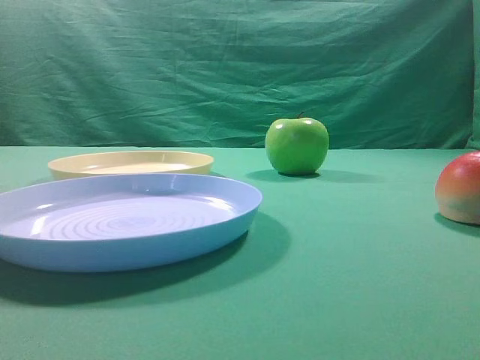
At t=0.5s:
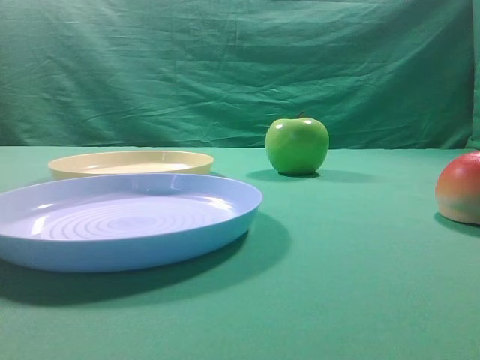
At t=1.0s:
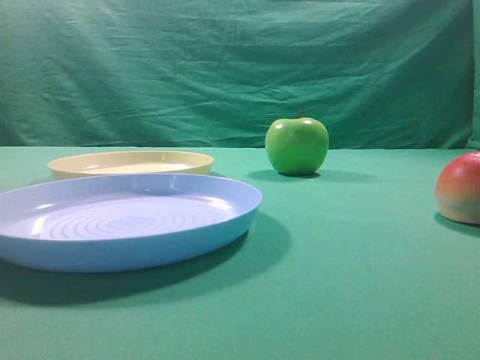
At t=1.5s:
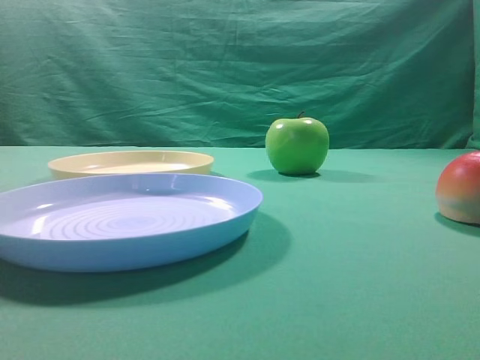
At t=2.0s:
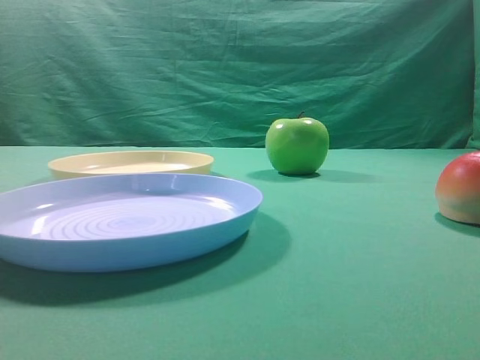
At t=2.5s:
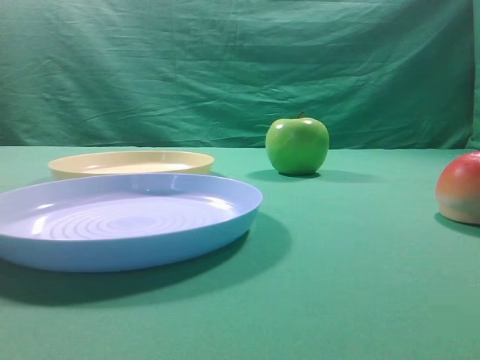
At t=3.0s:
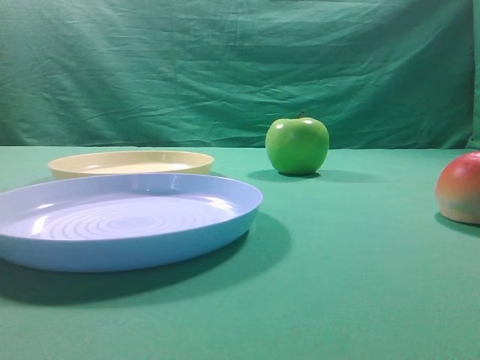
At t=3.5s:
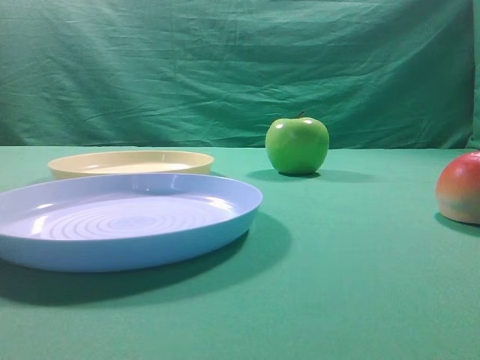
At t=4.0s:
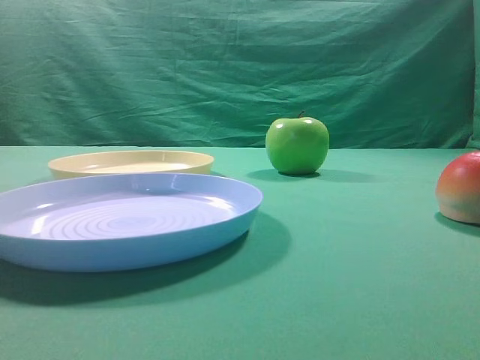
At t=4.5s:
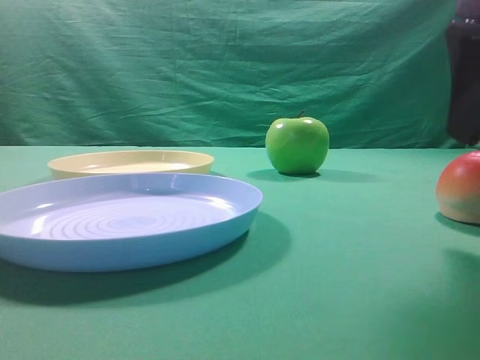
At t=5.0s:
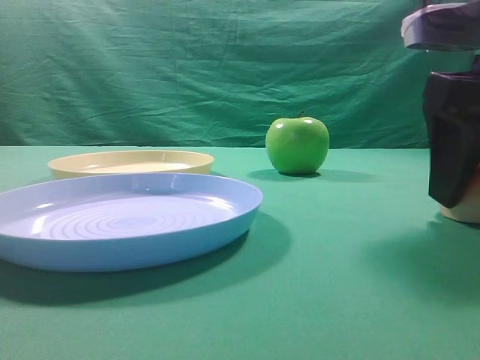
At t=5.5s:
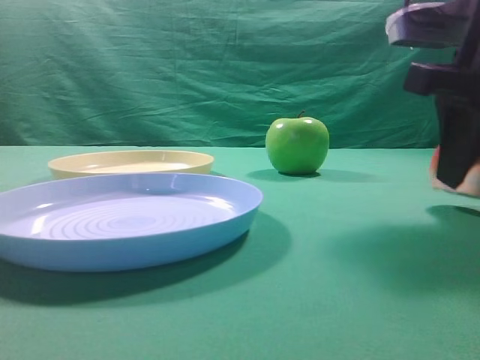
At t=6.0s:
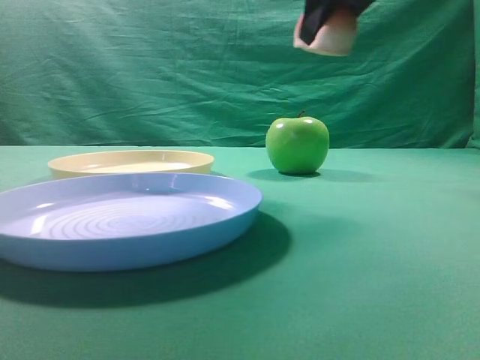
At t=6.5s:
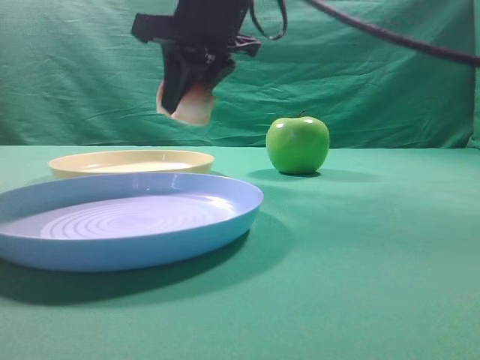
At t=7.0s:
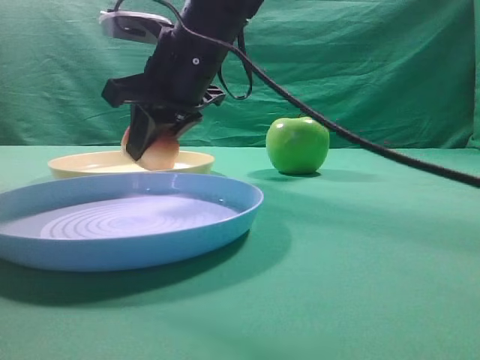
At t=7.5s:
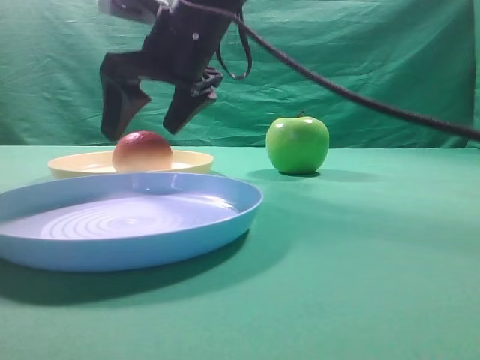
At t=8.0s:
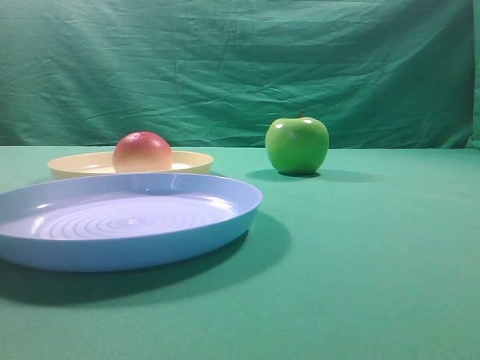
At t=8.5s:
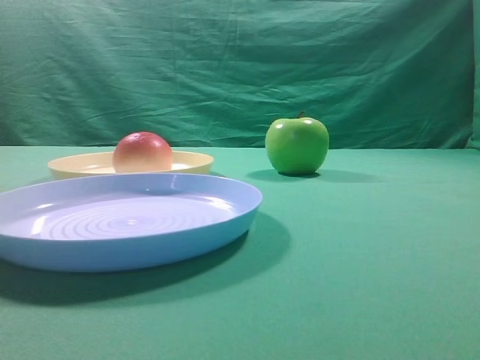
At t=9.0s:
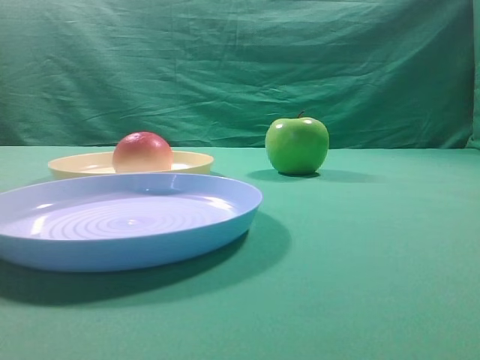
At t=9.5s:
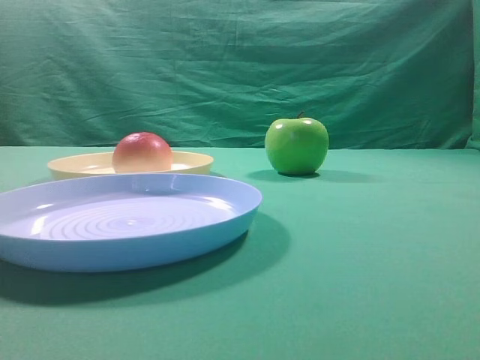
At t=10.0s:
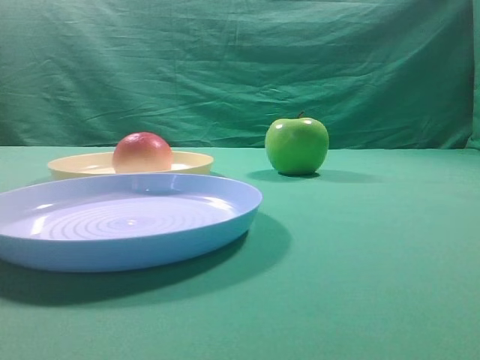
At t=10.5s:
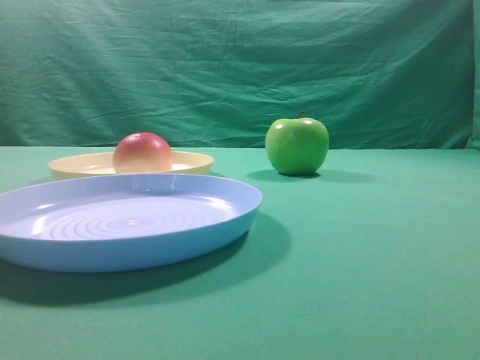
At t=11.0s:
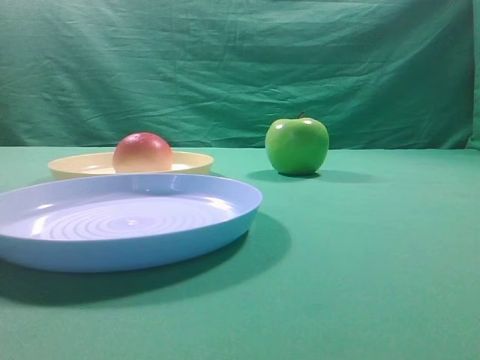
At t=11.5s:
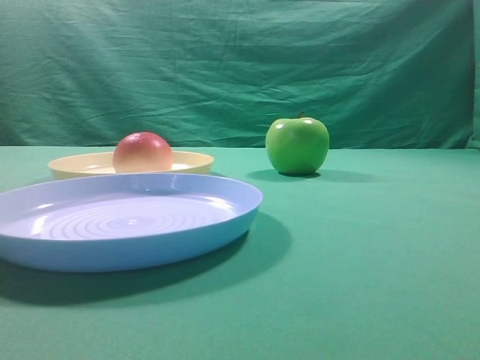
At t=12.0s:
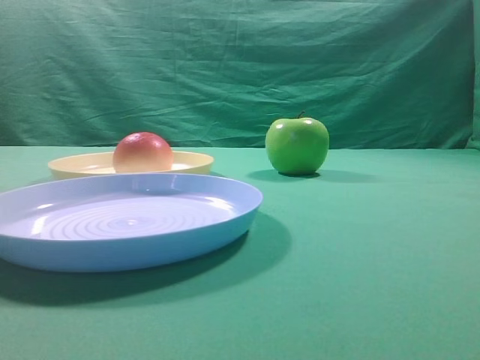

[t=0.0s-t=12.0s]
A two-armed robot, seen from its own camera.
Step, t=6.0s to t=7.5s: Place the picked object on the yellow plate.

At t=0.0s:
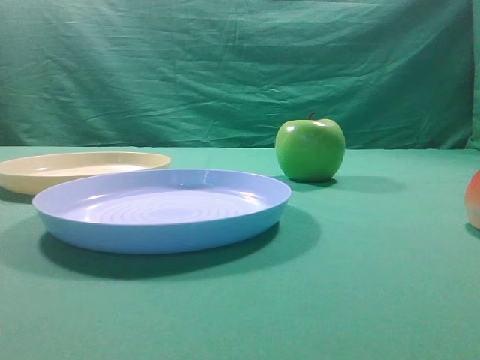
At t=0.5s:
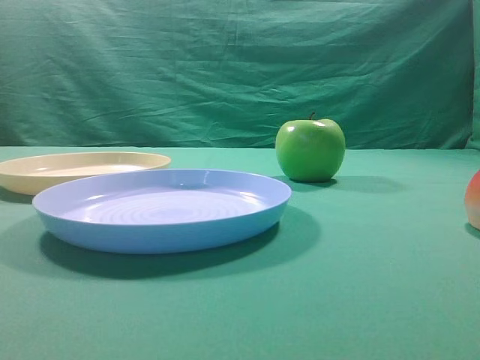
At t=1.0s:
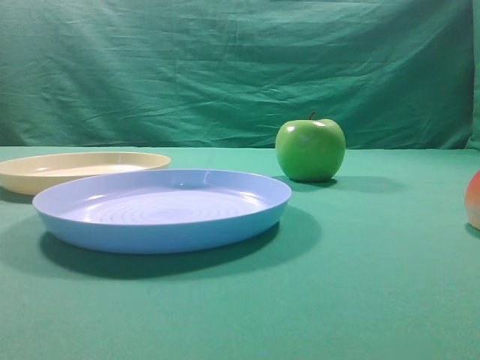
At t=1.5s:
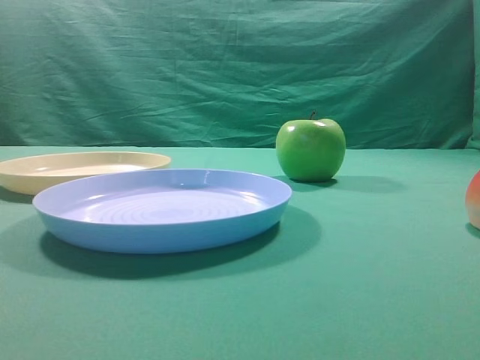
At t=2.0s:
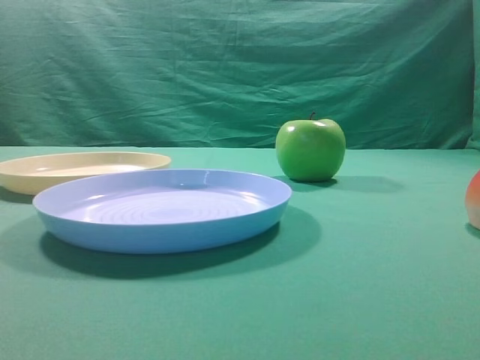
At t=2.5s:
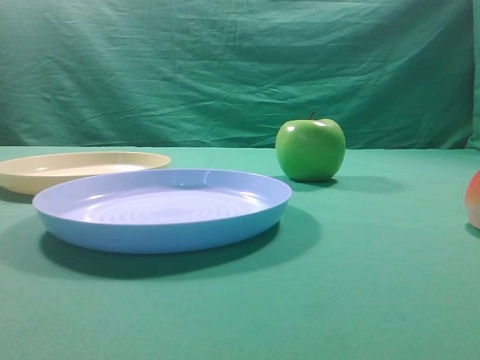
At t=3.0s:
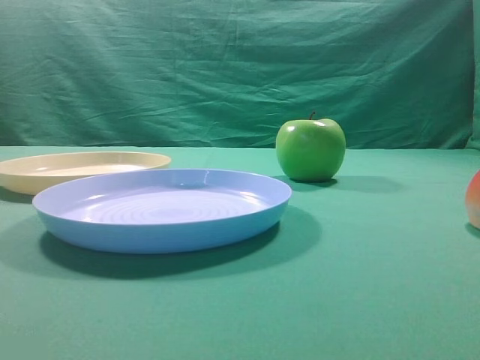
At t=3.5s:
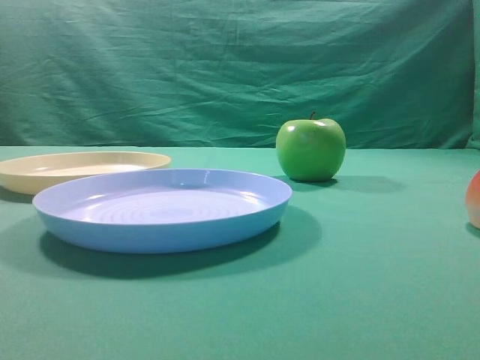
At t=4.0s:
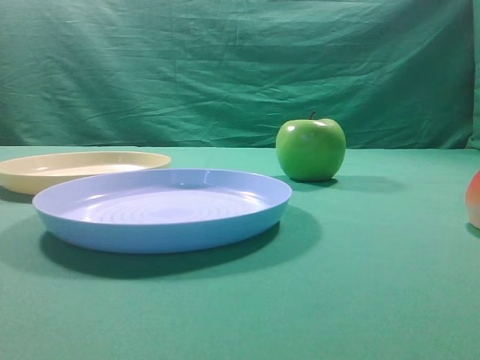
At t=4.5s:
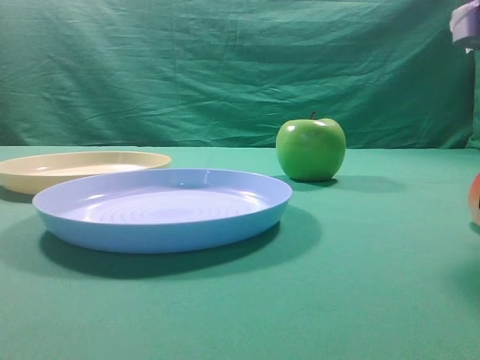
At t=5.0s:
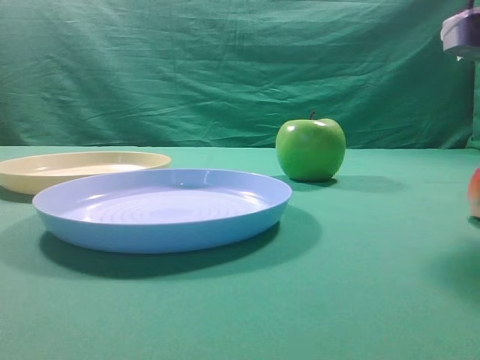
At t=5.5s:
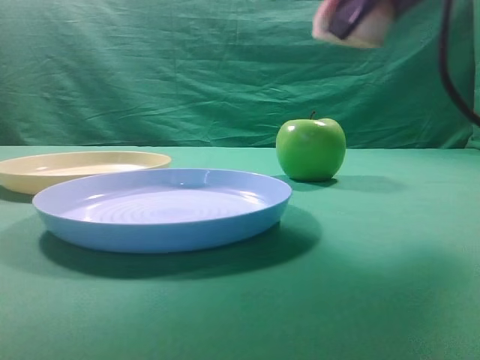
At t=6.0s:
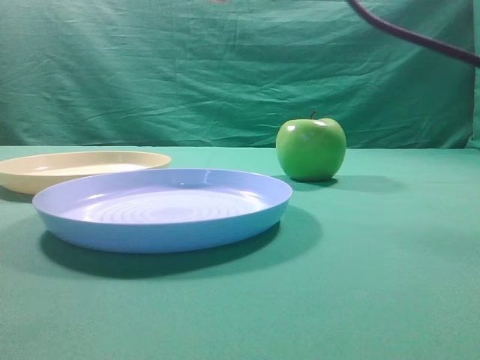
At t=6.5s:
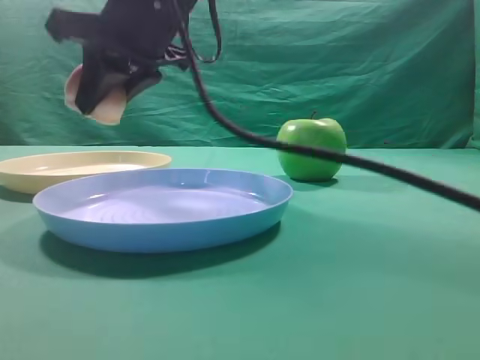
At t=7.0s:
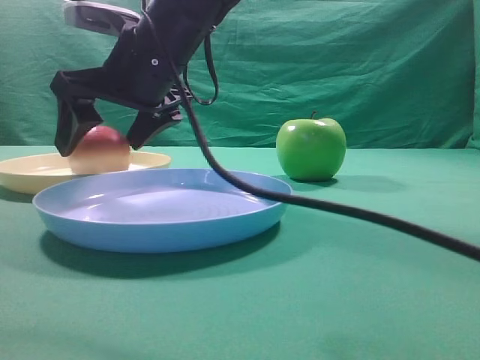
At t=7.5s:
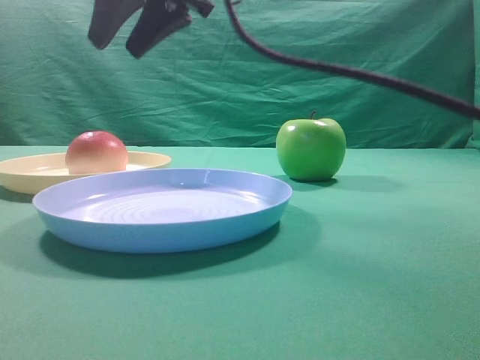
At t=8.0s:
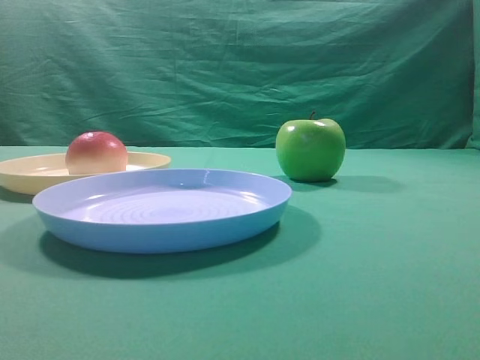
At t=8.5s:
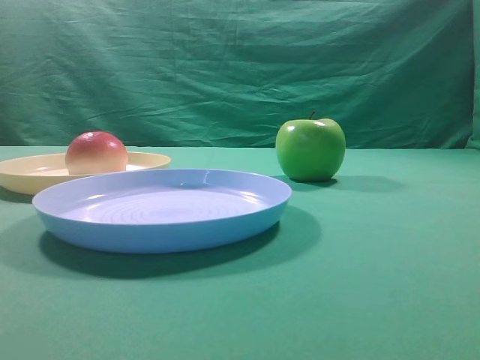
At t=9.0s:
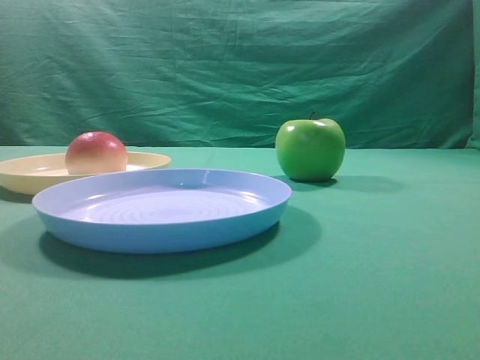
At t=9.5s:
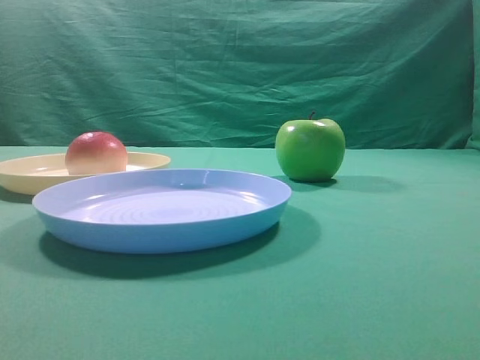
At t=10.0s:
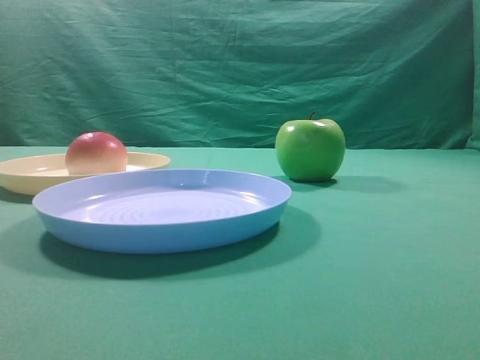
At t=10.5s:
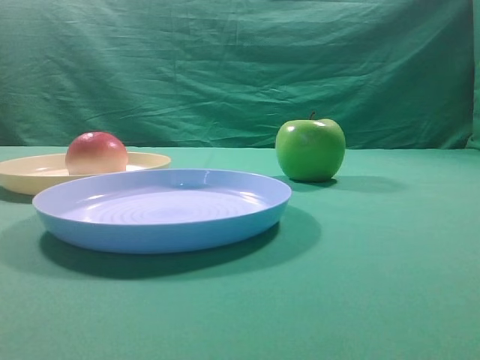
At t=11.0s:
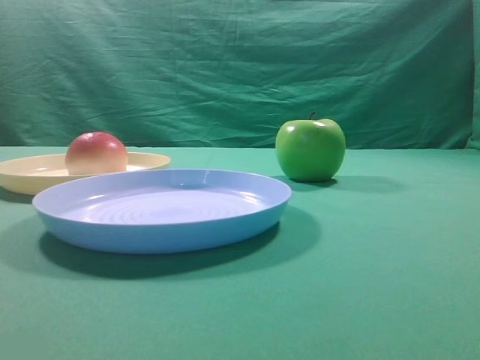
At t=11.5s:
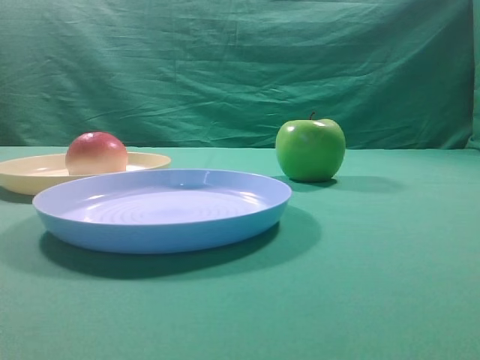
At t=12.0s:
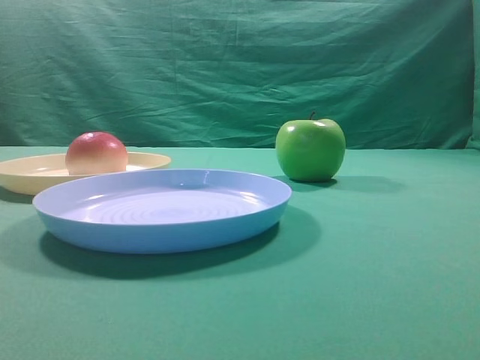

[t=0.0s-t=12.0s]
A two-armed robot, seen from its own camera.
Step, t=5.5s to t=7.0s: Place the picked object on the yellow plate.

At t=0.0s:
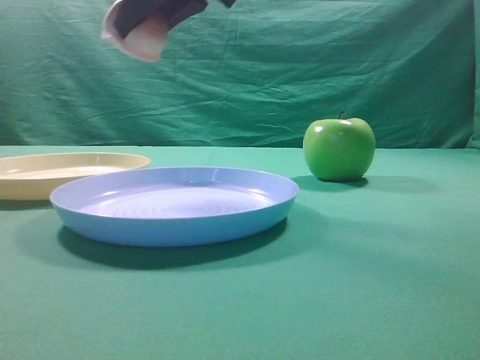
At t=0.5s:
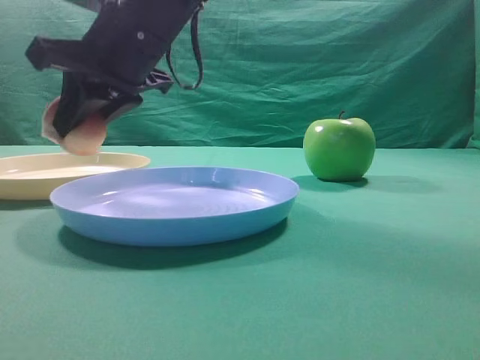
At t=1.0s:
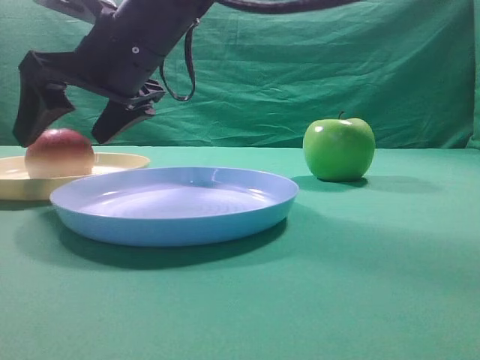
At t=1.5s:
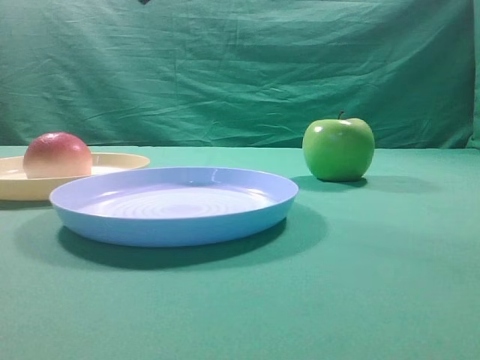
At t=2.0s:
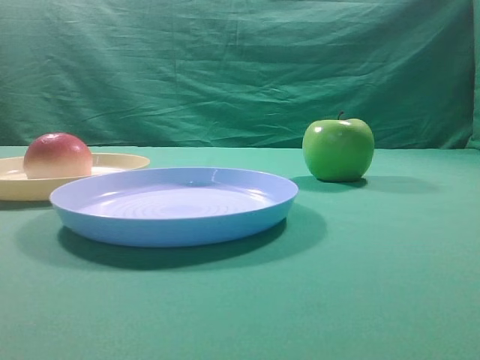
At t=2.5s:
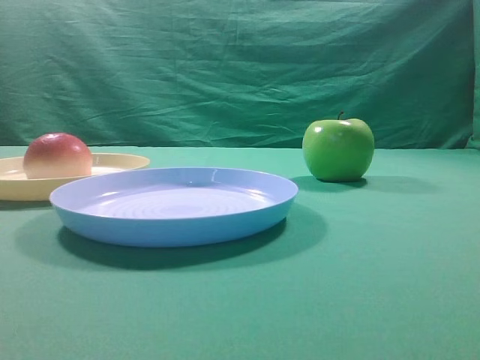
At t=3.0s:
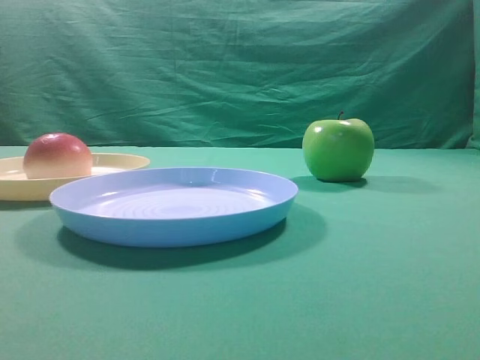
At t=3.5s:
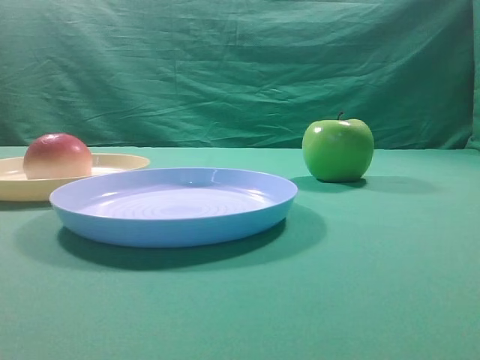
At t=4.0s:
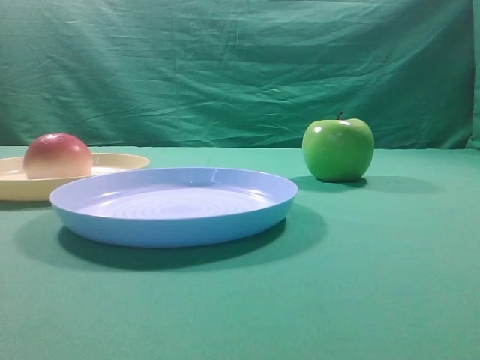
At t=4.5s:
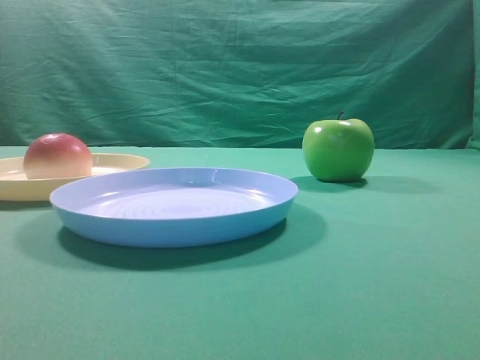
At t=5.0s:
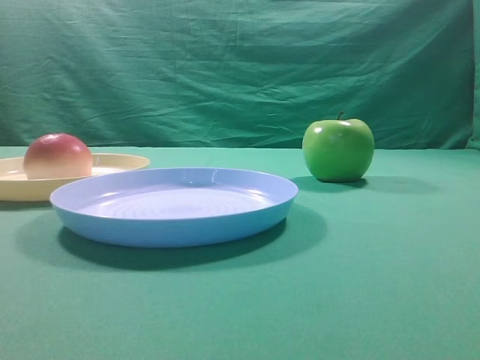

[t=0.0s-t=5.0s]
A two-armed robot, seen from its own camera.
Step, t=0.0s to t=1.0s: Place the picked object on the yellow plate.
